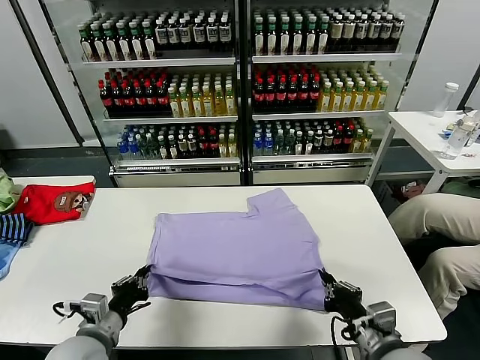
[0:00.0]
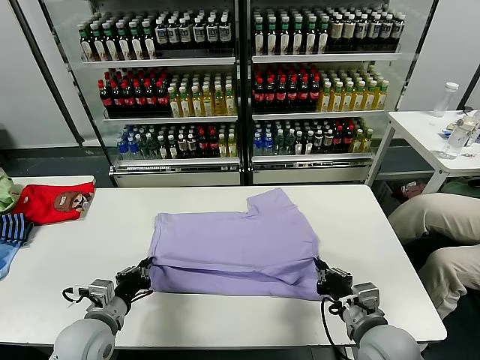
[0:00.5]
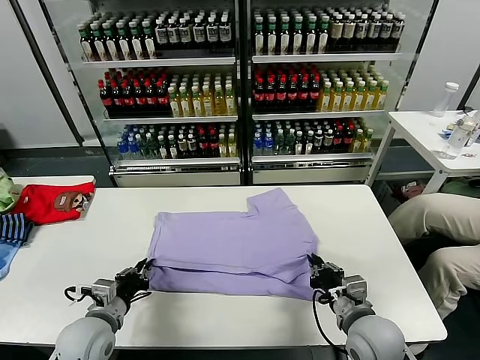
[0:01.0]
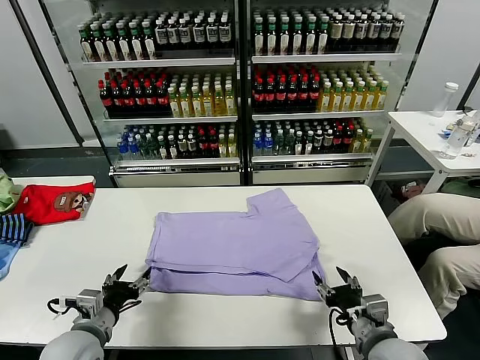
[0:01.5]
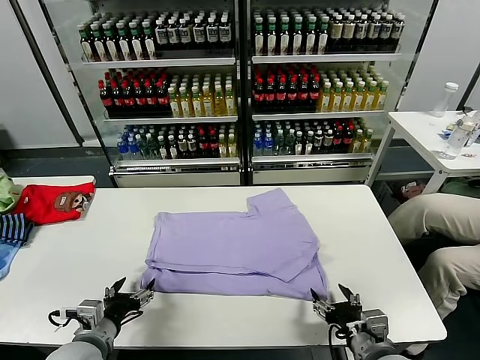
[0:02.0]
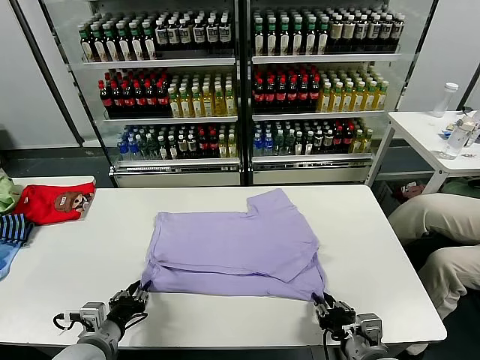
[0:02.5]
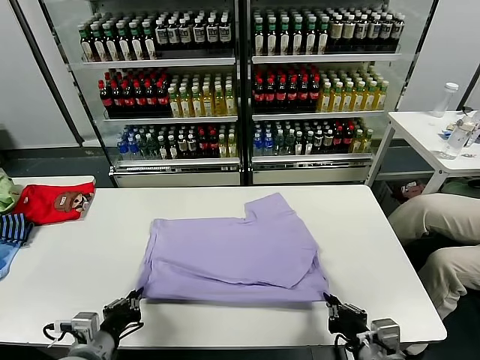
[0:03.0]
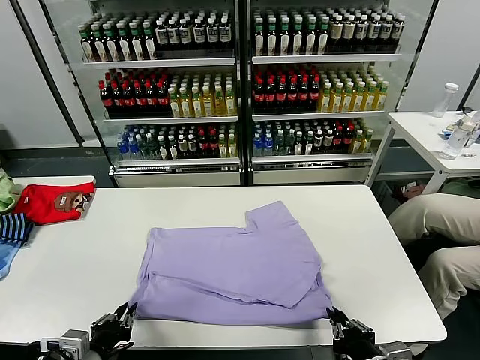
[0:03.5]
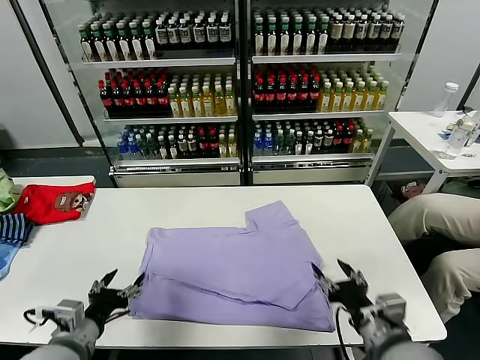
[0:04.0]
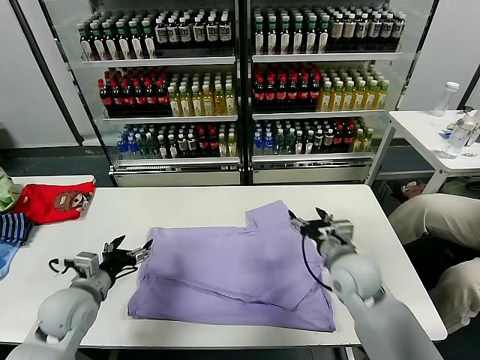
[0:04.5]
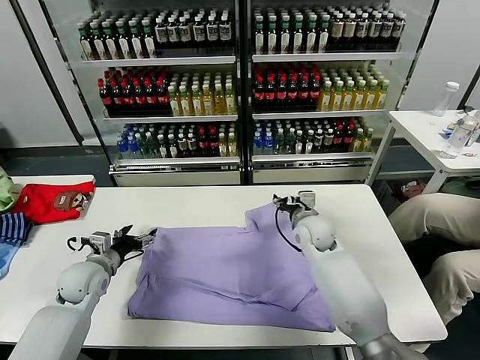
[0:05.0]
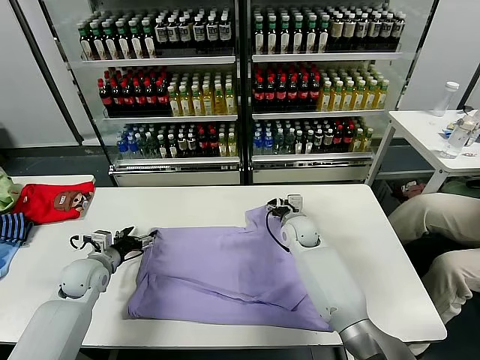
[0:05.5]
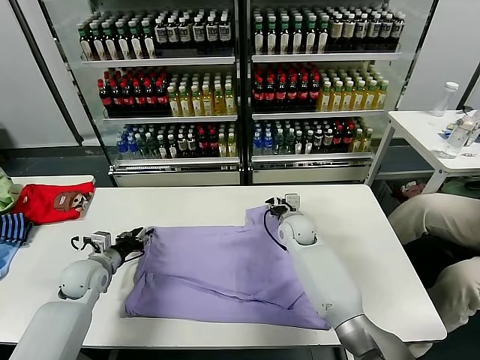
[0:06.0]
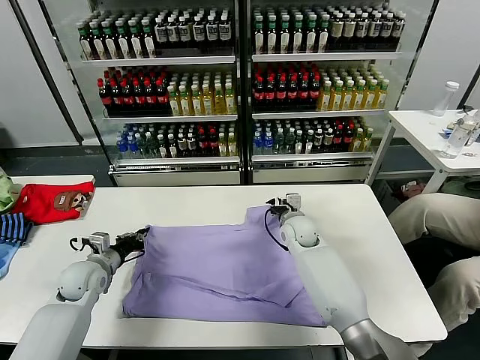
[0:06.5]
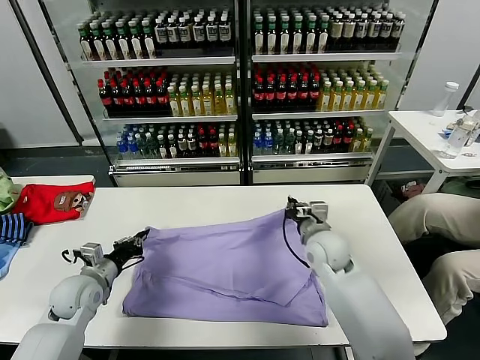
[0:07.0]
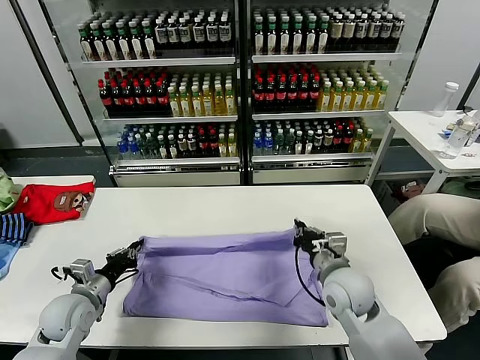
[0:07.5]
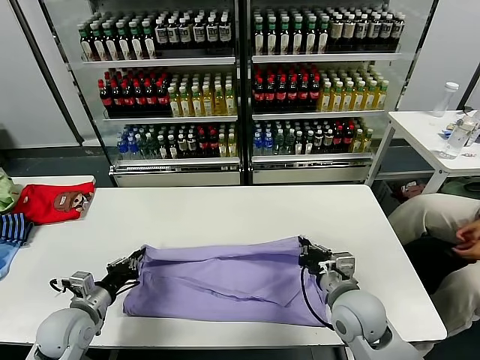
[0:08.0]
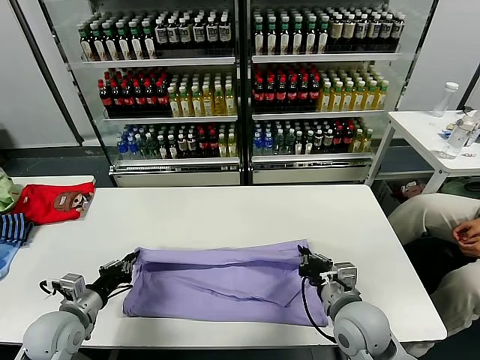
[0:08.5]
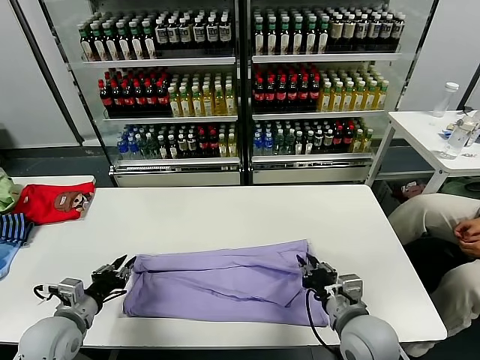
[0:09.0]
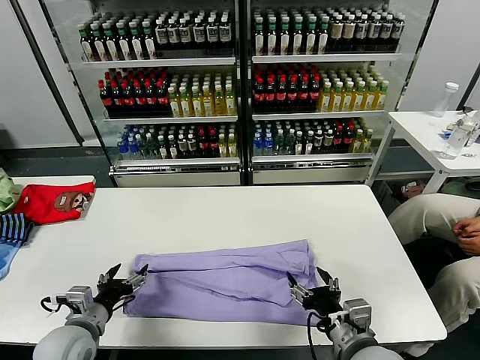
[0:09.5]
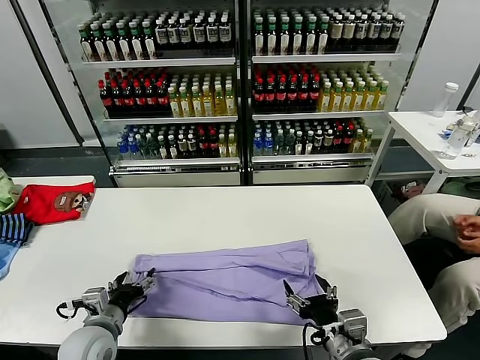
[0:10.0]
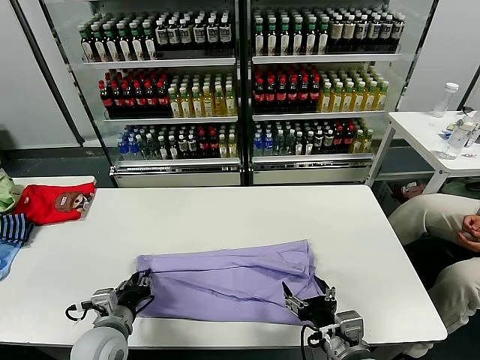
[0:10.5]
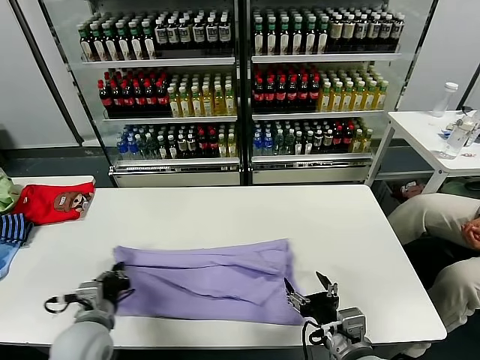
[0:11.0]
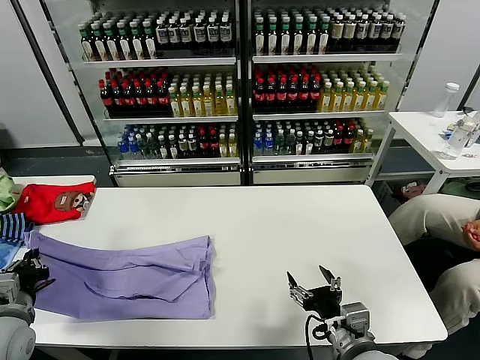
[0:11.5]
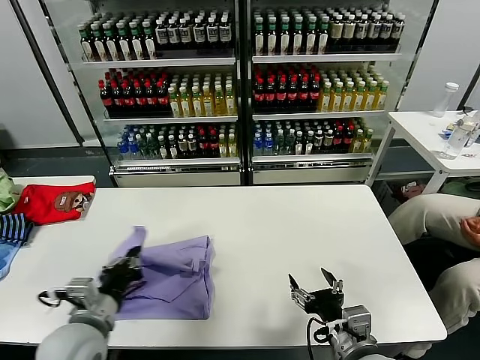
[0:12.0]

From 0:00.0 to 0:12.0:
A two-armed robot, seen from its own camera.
Task of the whole recording: fold and organize the clothes.
Step, from 0:01.5 to 0:03.5: Drag the clothes downward with both gripper.
Step, from 0:04.0 to 0:06.0: use both grippers simultaneously to clamp the upper edge of the clothing fabric.
Step, from 0:07.0 to 0:09.0: use both grippers to drag the upper edge of the fabric backward and fold it over the lower edge.
Step, from 0:09.5 to 0:10.5: use the left gripper to clamp the left edge of the fabric.
From 0:00.0 to 0:02.0: The right gripper opens its fingers. Meanwhile the left gripper opens up.
From 0:02.0 to 0:04.0: The right gripper goes approximately 5 cm upward, and closes and opens again. The left gripper changes place by approximately 5 cm, and closes and opens again.
From 0:04.0 to 0:06.0: Both grippers travel together forward, about 25 cm. The left gripper closes its fingers. Meanwhile the right gripper closes its fingers.
From 0:06.0 to 0:08.0: The right gripper goes roughly 25 cm backward, and closes its fingers; the left gripper is displaced backward by some 10 cm, and closes.
From 0:08.0 to 0:10.0: The left gripper moves to the right, about 5 cm, and opens up, while the right gripper goes roughly 10 cm backward, and opens up.
From 0:10.0 to 0:12.0: The left gripper goes roughly 10 cm upward, reaches approximately 10 cm to the left, then returns, and closes its fingers.

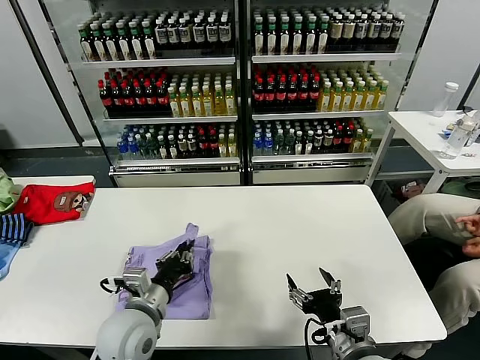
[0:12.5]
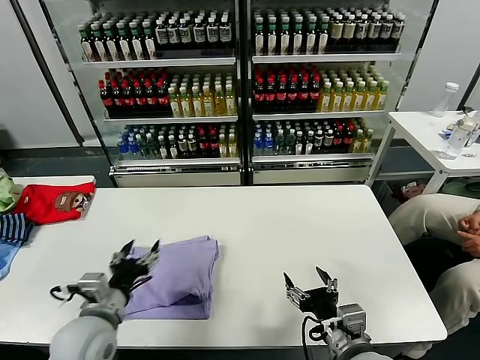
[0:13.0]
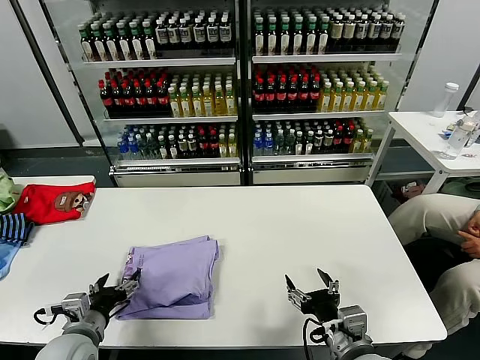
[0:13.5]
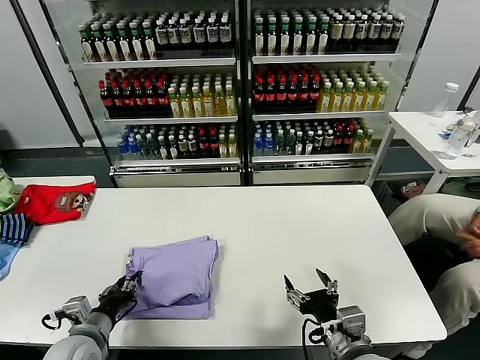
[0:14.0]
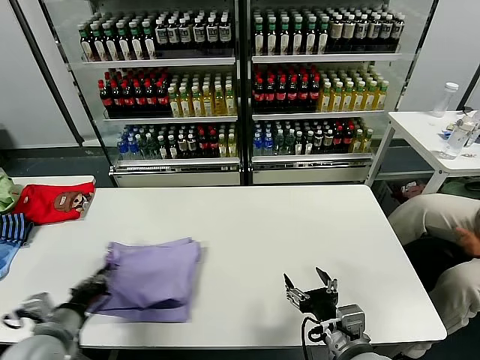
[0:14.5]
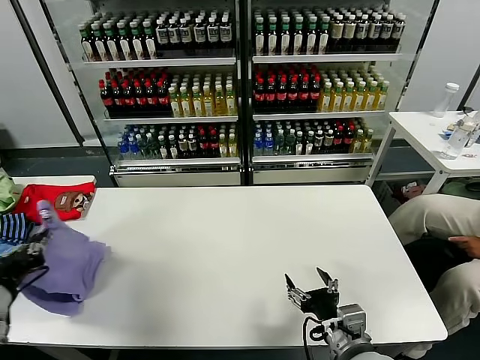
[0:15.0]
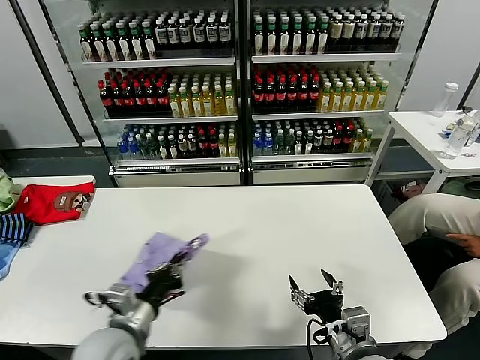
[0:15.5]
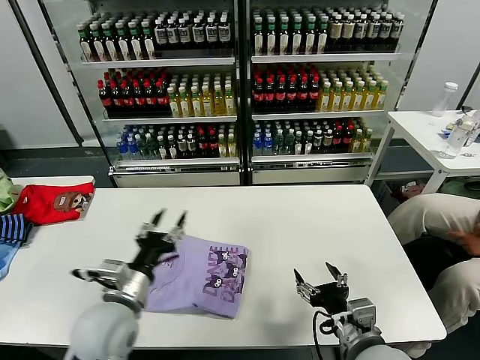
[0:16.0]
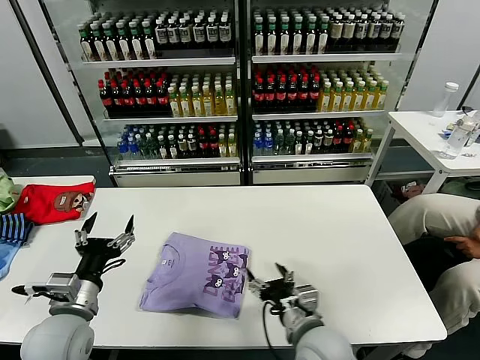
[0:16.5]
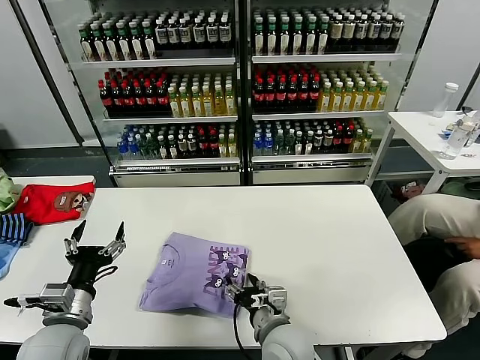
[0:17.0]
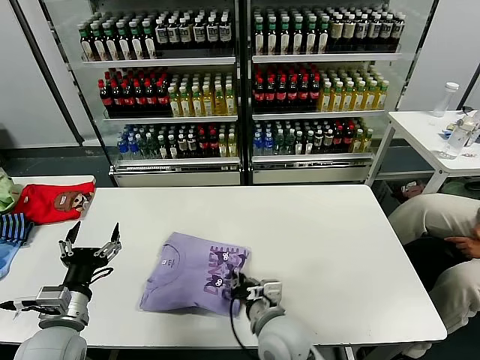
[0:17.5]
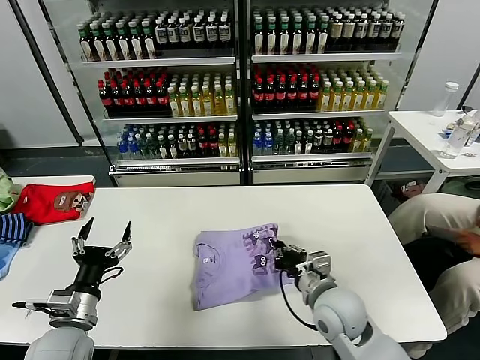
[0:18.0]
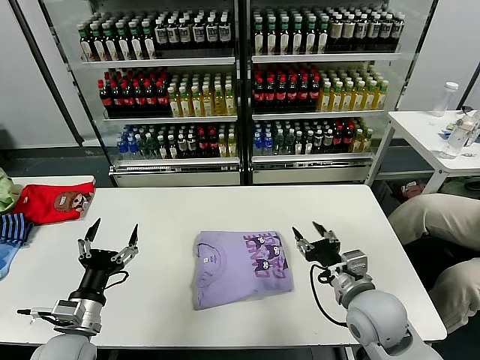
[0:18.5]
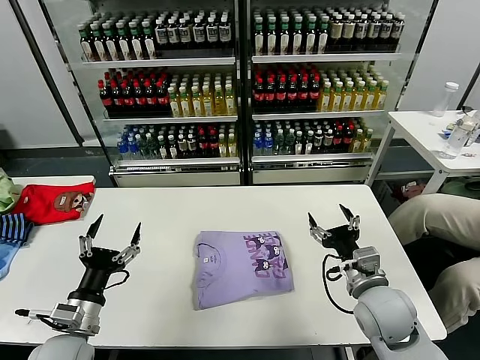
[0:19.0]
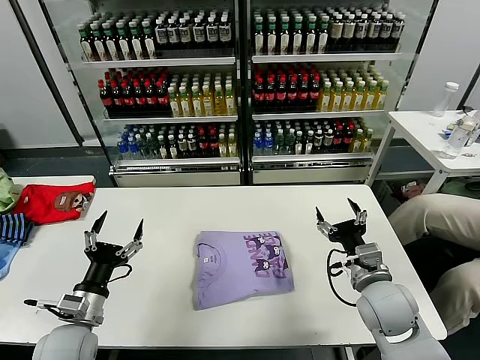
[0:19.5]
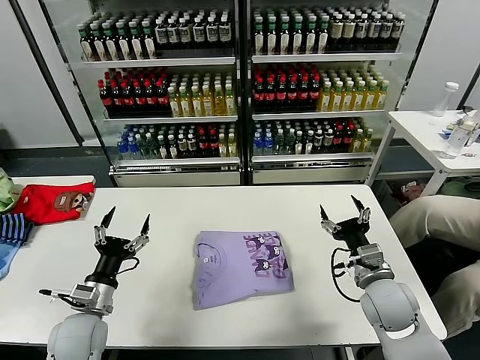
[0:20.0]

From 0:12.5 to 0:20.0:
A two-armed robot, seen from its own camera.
Task of the whole recording: fold and organize the clothes.
Step, from 0:13.5 to 0:15.5: Flip the folded clothes over with left gripper.
Step, from 0:16.5 to 0:19.0: Drag the clothes to the center of the table.
From 0:12.5 to 0:14.5: The left gripper shifts roughly 15 cm to the left, and opens, then closes once more.
From 0:14.5 to 0:16.5: The right gripper shifts approximately 5 cm to the left and forward. Meanwhile the left gripper swings left and right, about 25 cm each way, with 2 reversals, and opens up.
From 0:16.5 to 0:18.0: The right gripper goes roughly 5 cm forward, reaches about 10 cm to the left, then returns, and closes up.
From 0:18.0 to 0:20.0: The right gripper heads to the right, covering some 10 cm, and opens, while the left gripper shifts by about 5 cm.
